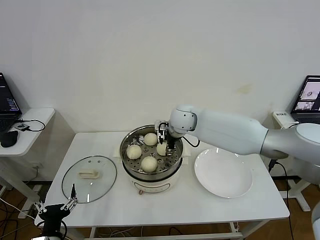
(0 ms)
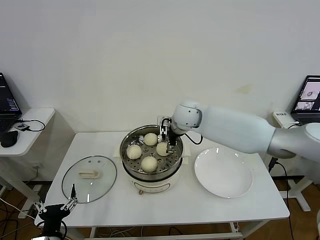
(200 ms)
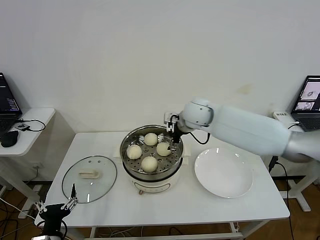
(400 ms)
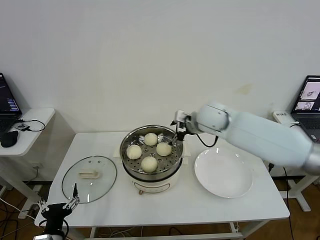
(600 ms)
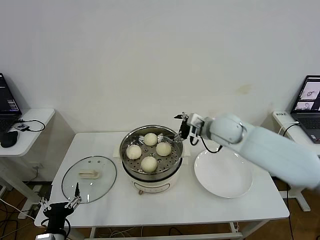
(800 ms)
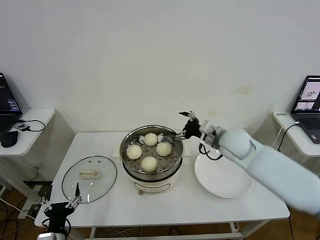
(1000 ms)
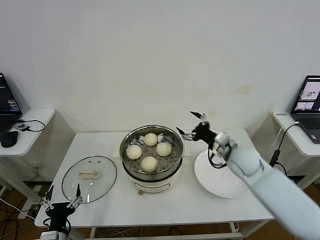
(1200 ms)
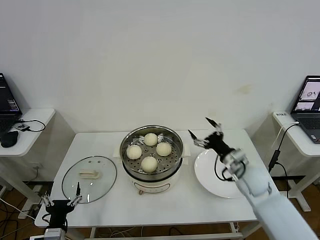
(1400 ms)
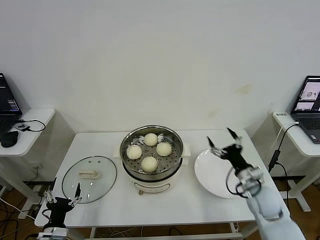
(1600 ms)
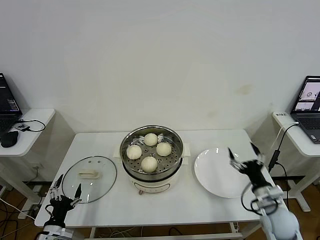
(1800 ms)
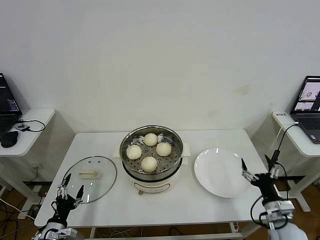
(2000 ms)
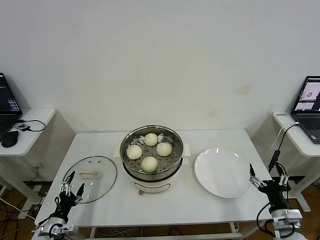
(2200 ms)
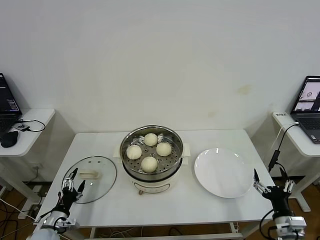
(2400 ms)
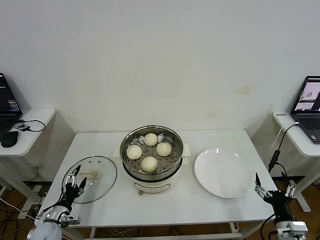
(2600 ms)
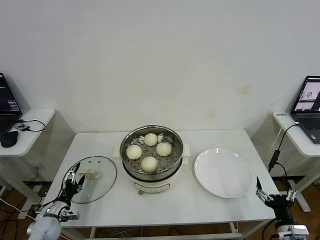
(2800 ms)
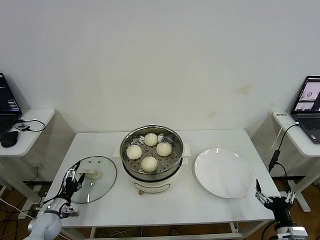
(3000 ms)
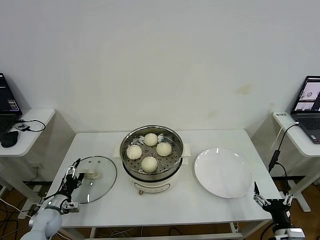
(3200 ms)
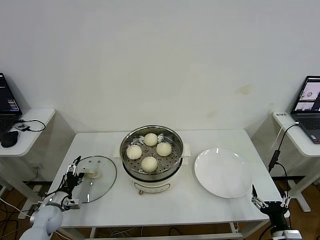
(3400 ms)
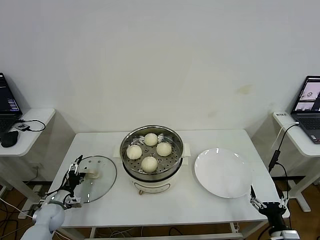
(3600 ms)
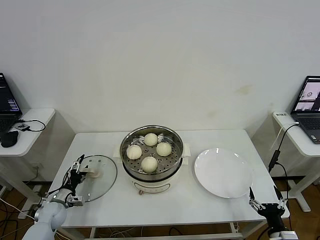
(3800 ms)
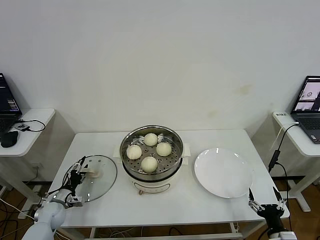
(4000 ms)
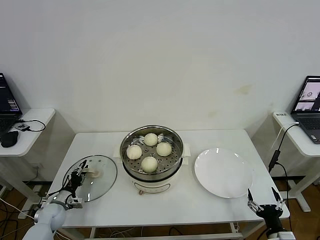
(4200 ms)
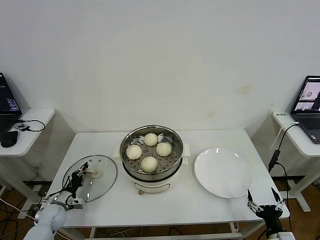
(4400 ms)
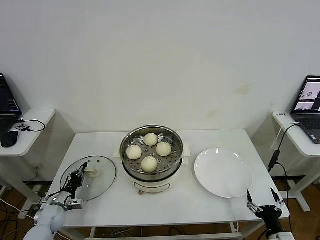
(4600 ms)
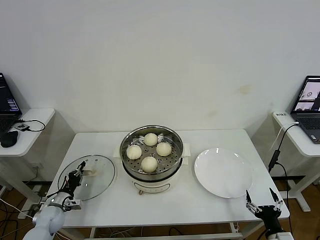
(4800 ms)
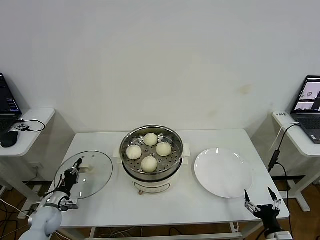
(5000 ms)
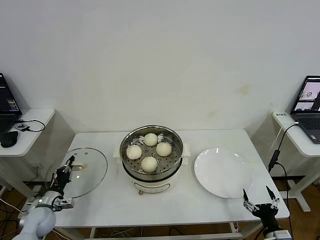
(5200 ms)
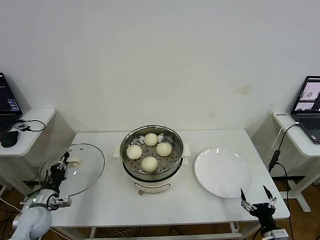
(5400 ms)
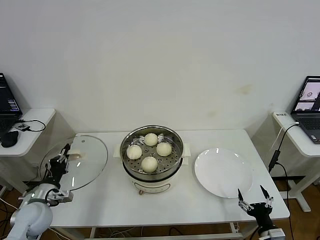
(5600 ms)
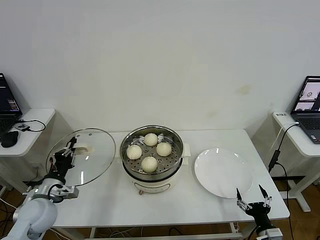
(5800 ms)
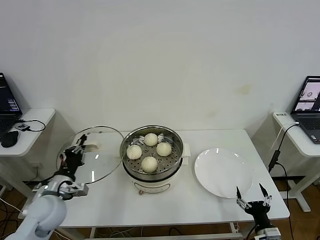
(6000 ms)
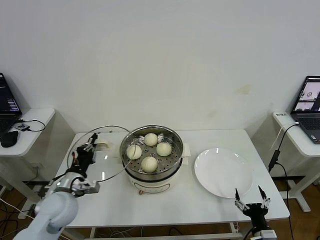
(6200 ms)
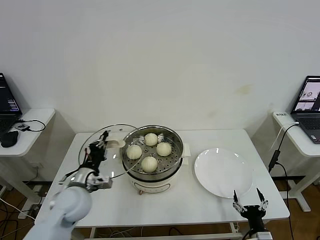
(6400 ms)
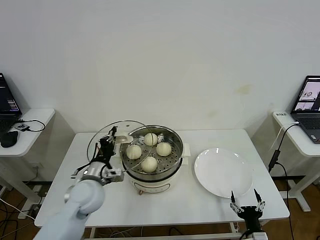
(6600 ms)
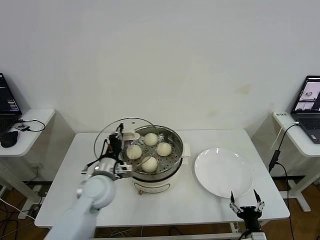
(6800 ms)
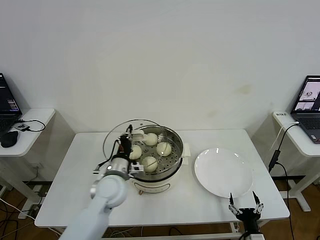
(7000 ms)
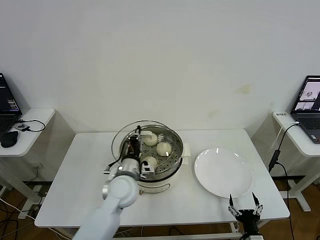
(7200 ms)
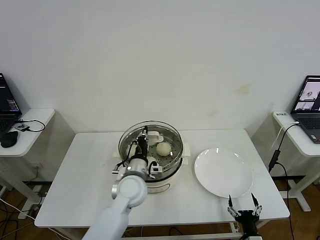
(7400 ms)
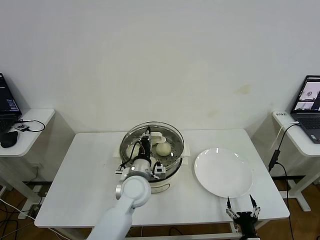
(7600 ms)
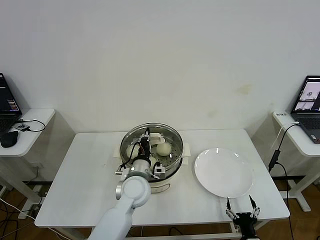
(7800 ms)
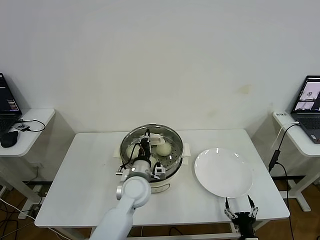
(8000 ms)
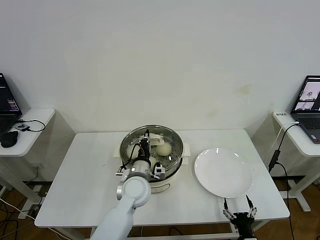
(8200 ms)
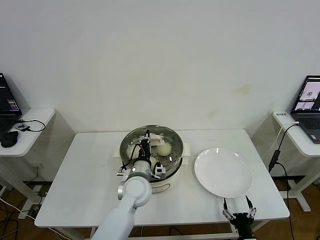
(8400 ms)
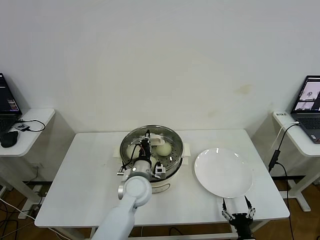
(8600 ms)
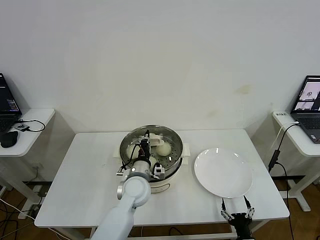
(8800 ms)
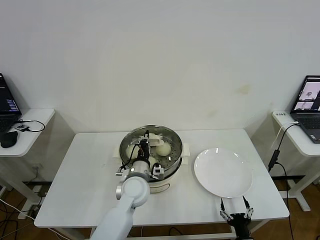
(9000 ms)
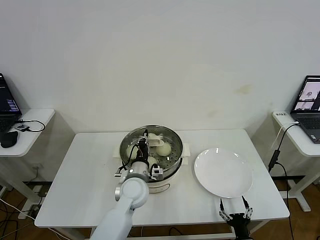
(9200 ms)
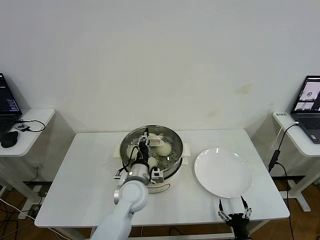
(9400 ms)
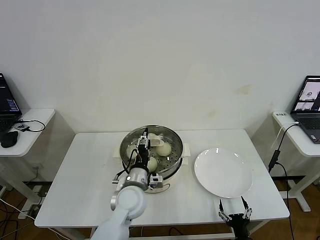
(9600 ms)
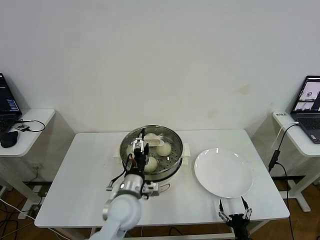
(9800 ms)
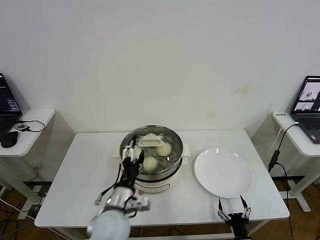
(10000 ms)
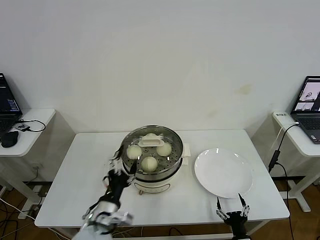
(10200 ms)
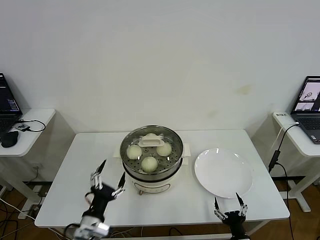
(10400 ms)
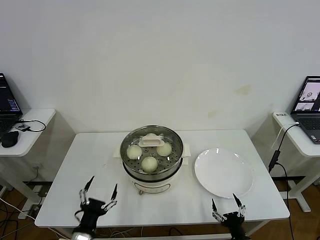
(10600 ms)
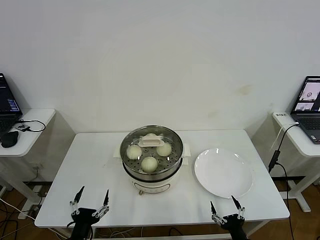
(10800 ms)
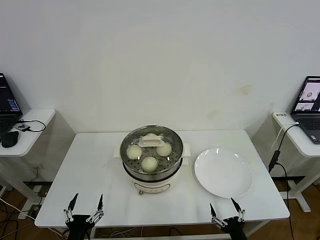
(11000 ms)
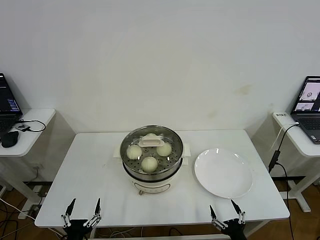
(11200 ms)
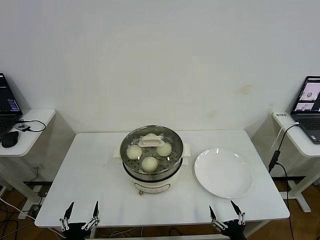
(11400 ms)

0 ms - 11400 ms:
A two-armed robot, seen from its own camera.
Step, 200 ms - 4400 ms: Grasp the pot lid with left gripper.
Step, 4600 ms - 8800 ms: Place the pot lid on the steamer with left gripper.
0 ms - 1400 ms: The right gripper travels to the right, backward and downward by about 30 cm, and opens its fingers.
1400 ms - 2800 ms: The left gripper goes approximately 15 cm forward, to the left and downward. Meanwhile the right gripper goes some 25 cm backward, to the right and downward.
2800 ms - 4200 ms: The left gripper shifts roughly 5 cm forward, and closes up.
4200 ms - 5600 ms: The left gripper goes roughly 15 cm upward and backward, and closes its fingers.
5600 ms - 7200 ms: The left gripper heads to the right, covering roughly 25 cm. Meanwhile the right gripper heads to the left, covering some 5 cm.
7200 ms - 8600 ms: The left gripper travels to the right by about 5 cm.
8600 ms - 10000 ms: The left gripper travels backward by some 10 cm, and opens.
10000 ms - 11400 ms: The left gripper travels backward, to the left and downward by roughly 25 cm. The right gripper heads upward, covering roughly 5 cm.

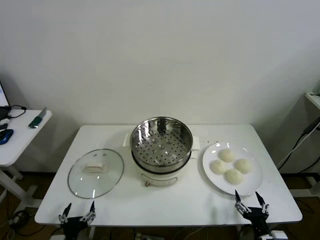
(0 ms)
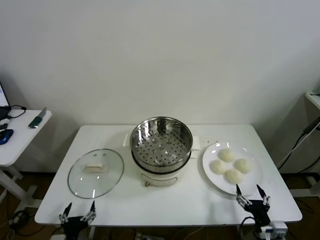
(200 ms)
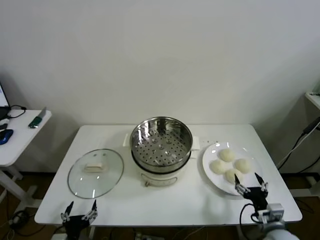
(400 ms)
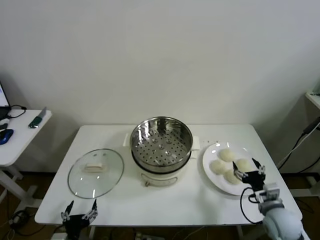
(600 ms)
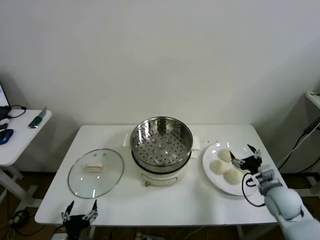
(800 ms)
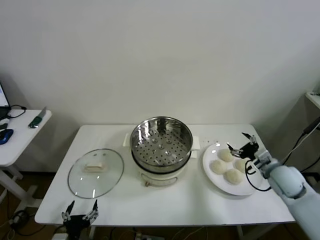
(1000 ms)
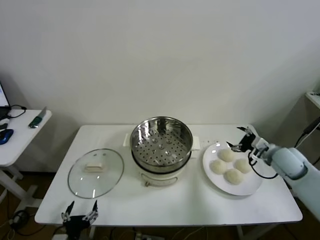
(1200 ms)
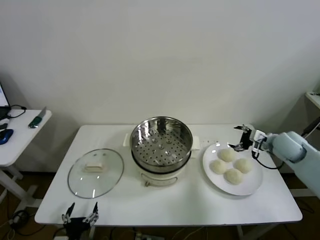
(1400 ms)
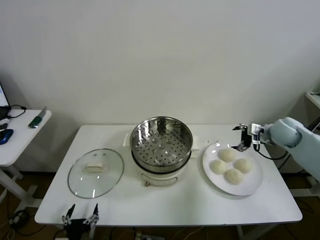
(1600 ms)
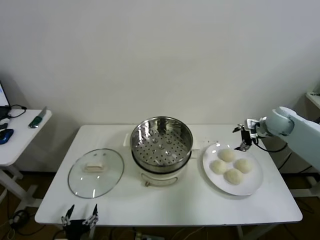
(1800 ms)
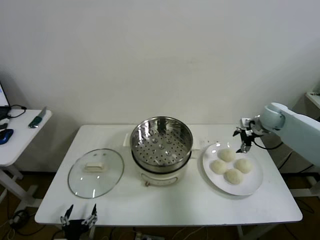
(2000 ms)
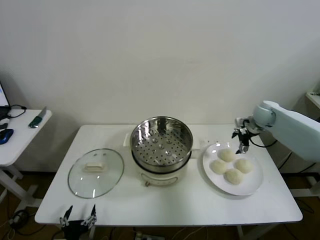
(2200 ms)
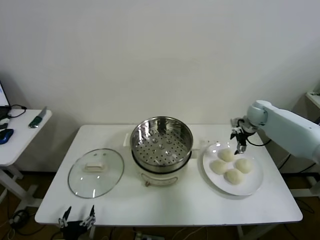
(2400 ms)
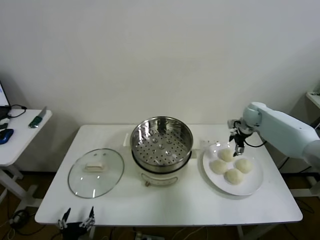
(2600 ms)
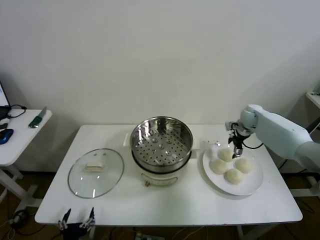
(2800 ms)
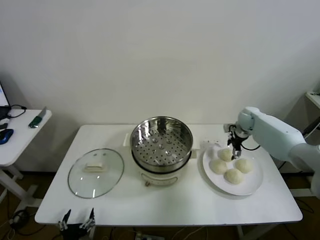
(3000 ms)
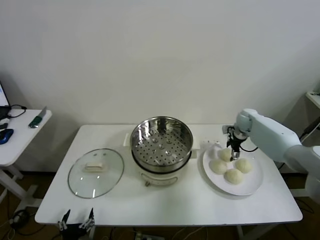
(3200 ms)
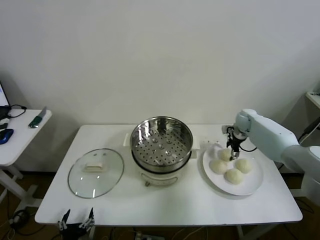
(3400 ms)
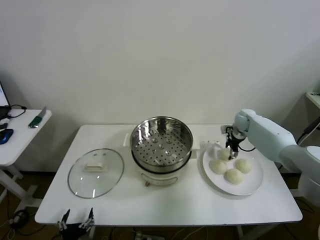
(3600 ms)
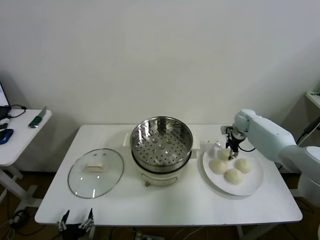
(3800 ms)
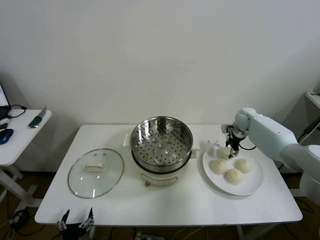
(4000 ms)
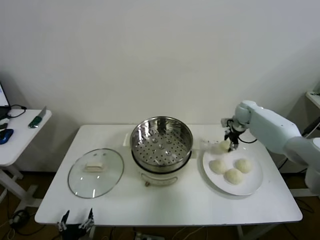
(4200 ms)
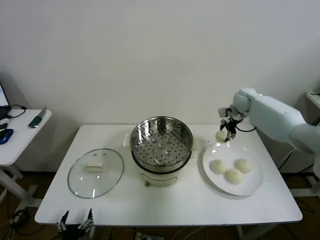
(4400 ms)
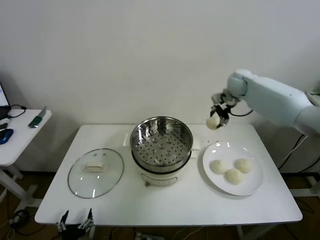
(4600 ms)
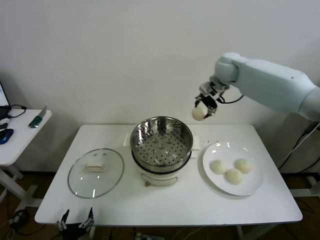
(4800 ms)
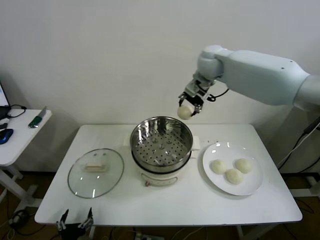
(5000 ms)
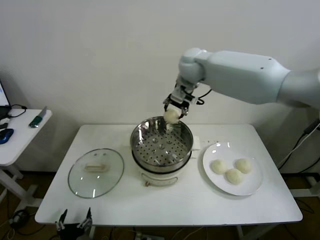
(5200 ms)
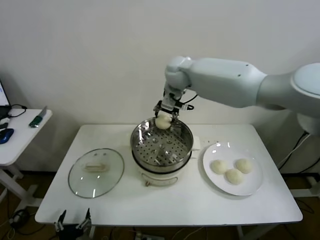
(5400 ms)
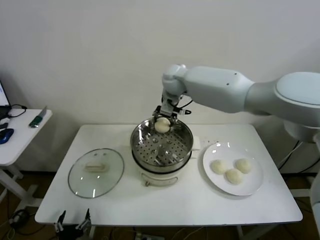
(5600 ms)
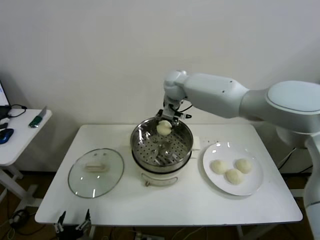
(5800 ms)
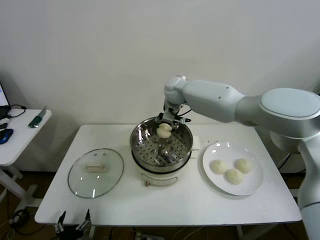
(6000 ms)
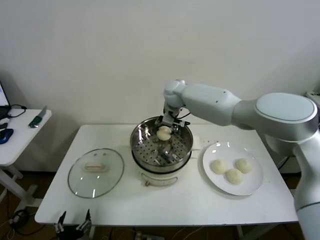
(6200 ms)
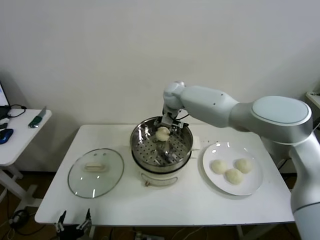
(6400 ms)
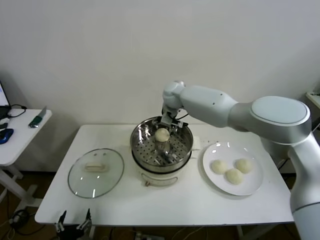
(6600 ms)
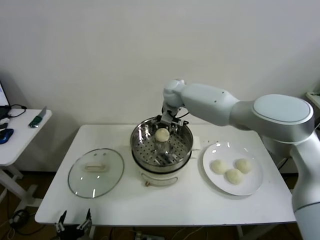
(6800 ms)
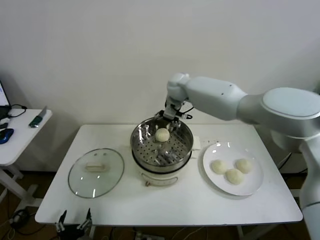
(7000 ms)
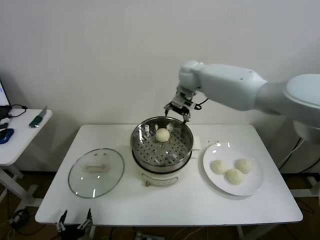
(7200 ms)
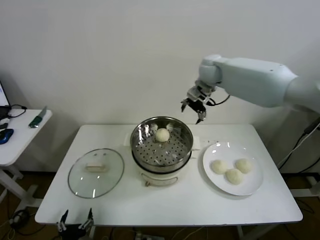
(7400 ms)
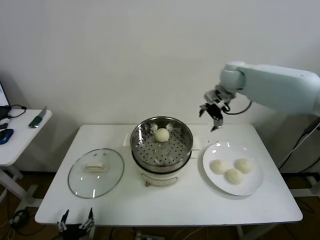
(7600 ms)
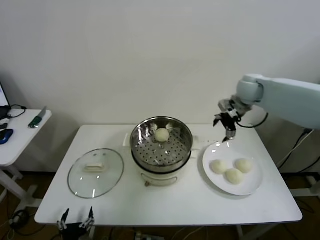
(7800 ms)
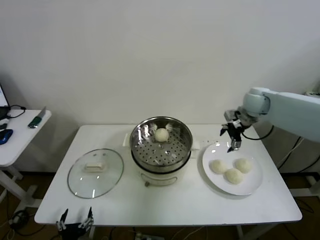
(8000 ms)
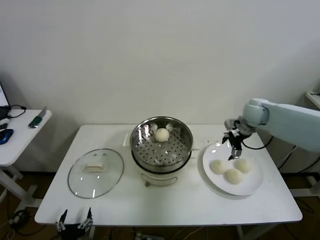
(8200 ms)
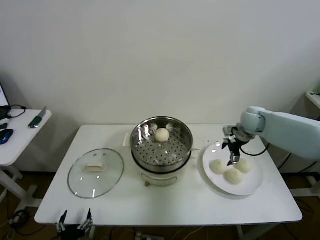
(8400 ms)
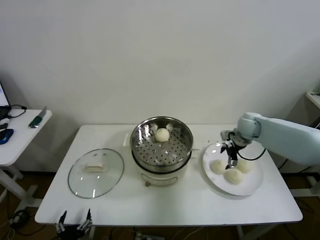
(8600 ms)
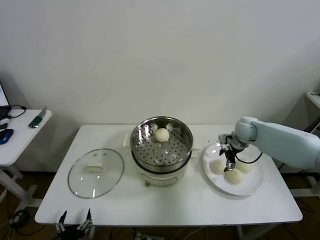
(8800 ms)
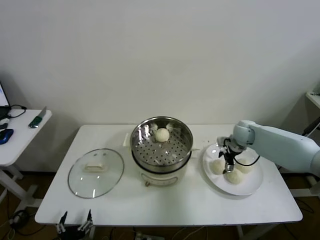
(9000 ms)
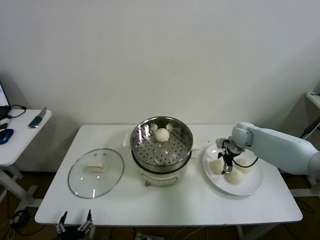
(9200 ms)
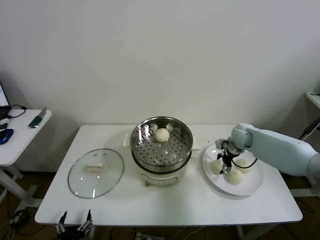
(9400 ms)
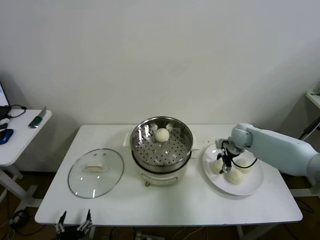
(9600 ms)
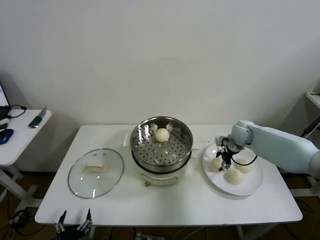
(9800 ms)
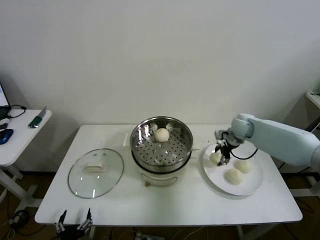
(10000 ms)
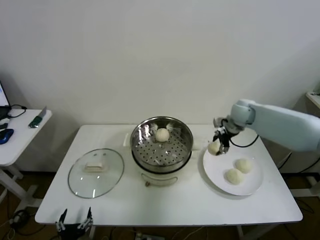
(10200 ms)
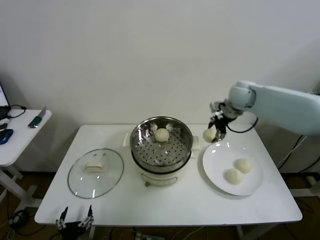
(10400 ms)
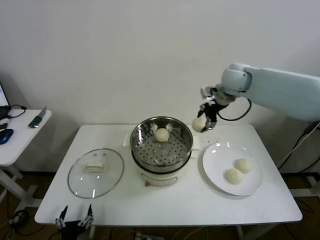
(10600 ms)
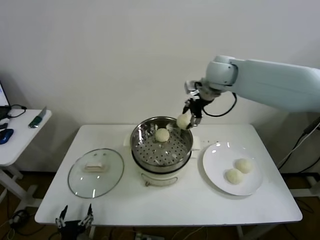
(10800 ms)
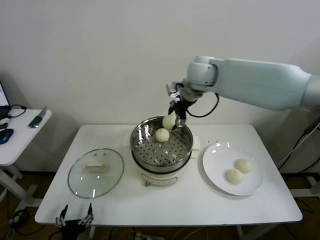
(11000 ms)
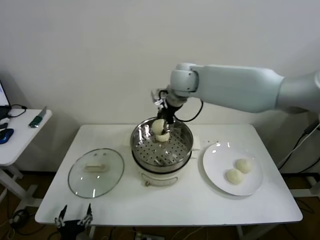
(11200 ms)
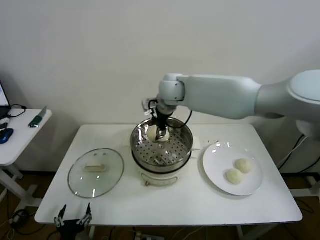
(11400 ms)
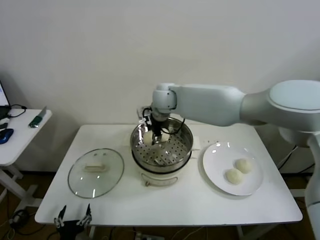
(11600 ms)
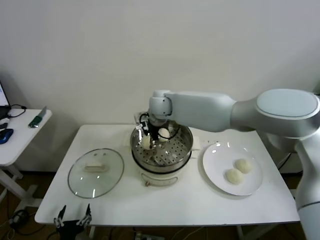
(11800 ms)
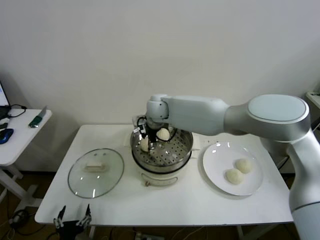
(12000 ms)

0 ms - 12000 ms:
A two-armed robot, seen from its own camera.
Step, 0 ms - 3600 ms: Grasp the baozi in the plate with right gripper.
Step, 3800 ms - 6600 ms: Place the baozi on the steamer with right gripper.
Step, 6800 ms - 9400 ms: Grasp the baozi in the plate with right gripper.
1600 ms - 3000 ms: The right gripper moves forward, downward and to the left, roughly 15 cm.
3000 ms - 4400 ms: The right gripper moves upward, approximately 10 cm, and closes up.
4400 ms - 6000 ms: The right gripper is displaced to the left by roughly 30 cm.
6000 ms - 7600 ms: The right gripper heads to the right, covering roughly 20 cm, and opens up.
7600 ms - 9000 ms: The right gripper travels downward by approximately 20 cm.
9000 ms - 10400 ms: The right gripper heads upward, covering roughly 15 cm, and closes its fingers.
10400 ms - 12000 ms: The right gripper moves to the left, approximately 30 cm.
